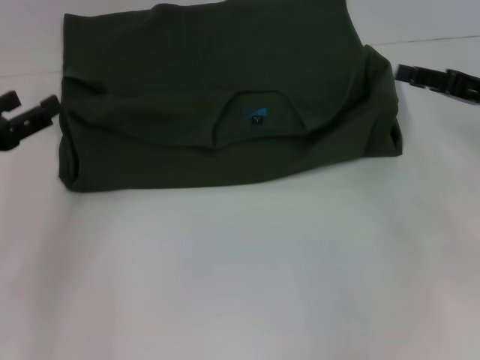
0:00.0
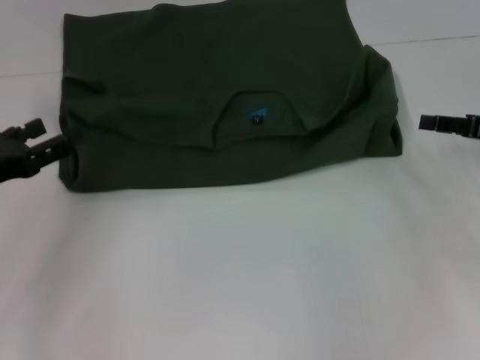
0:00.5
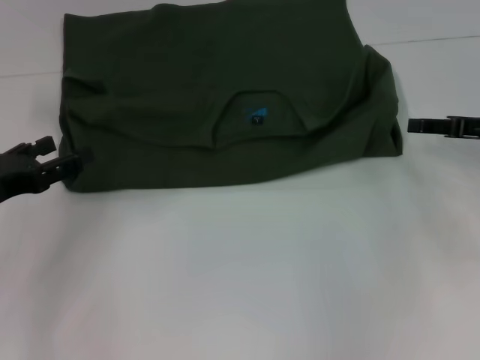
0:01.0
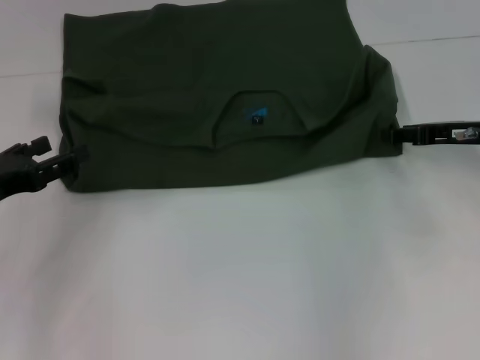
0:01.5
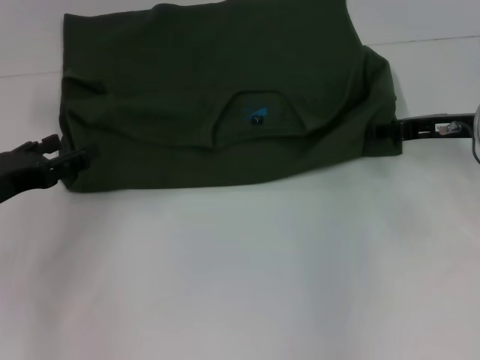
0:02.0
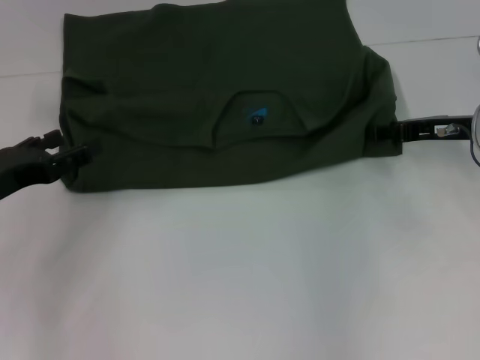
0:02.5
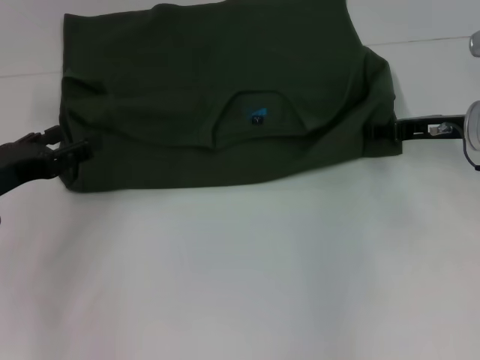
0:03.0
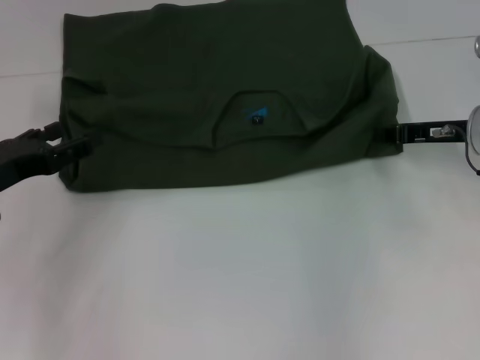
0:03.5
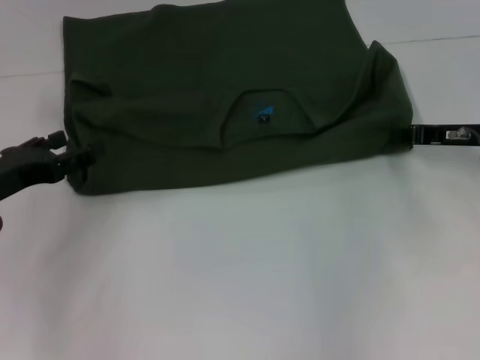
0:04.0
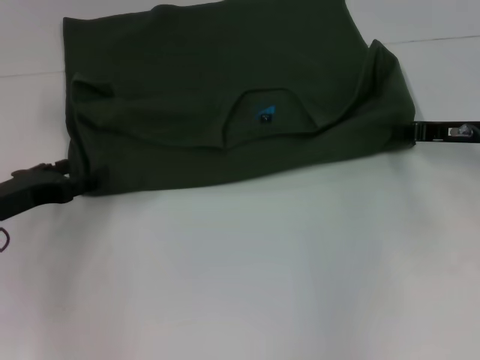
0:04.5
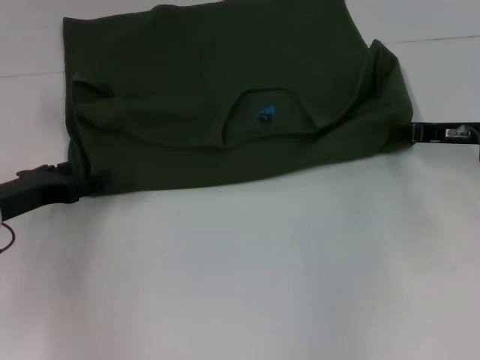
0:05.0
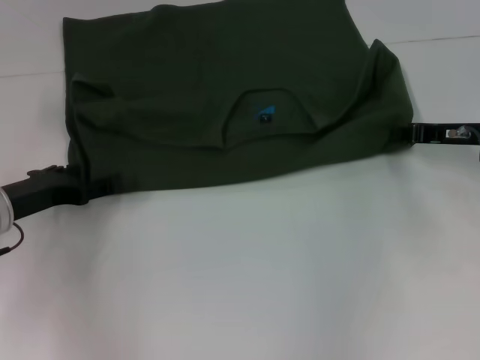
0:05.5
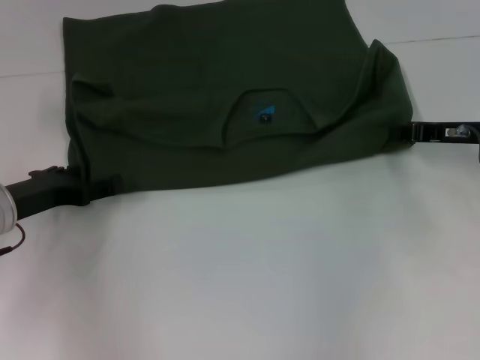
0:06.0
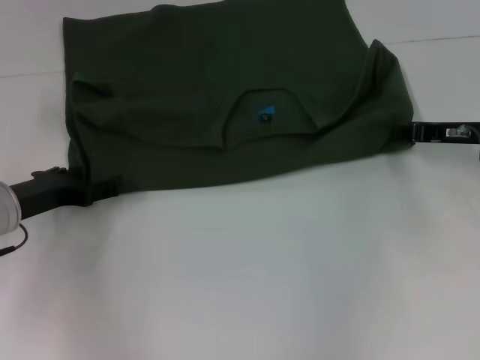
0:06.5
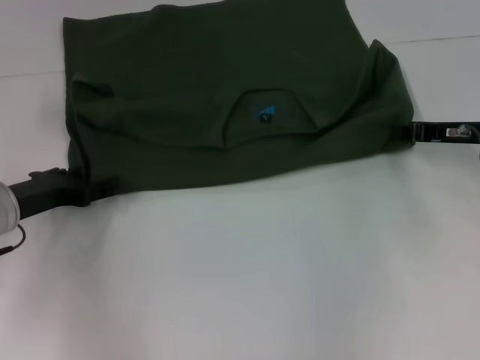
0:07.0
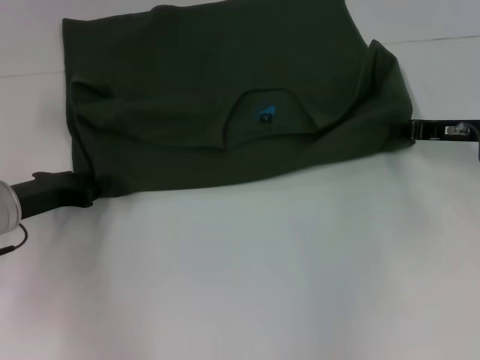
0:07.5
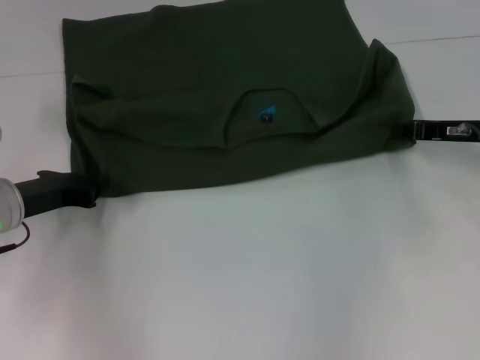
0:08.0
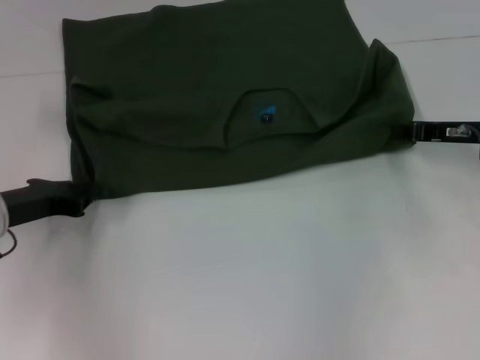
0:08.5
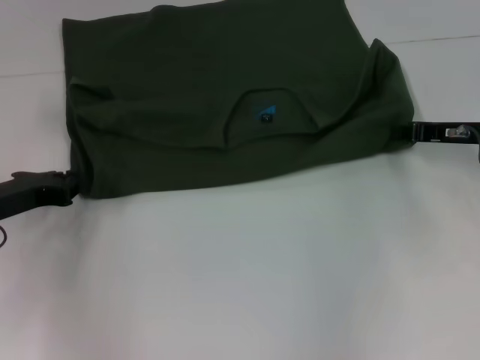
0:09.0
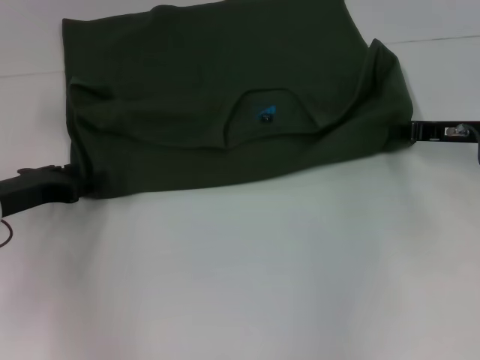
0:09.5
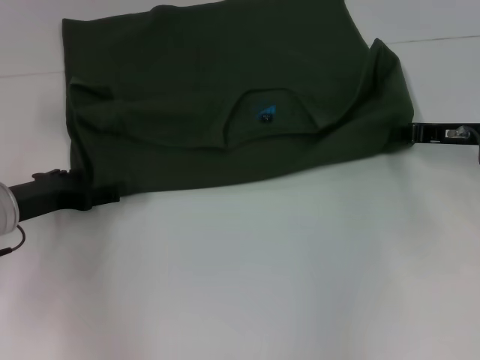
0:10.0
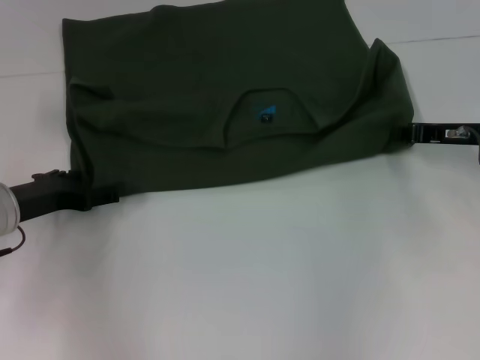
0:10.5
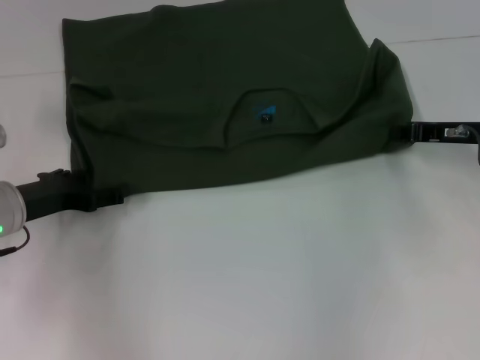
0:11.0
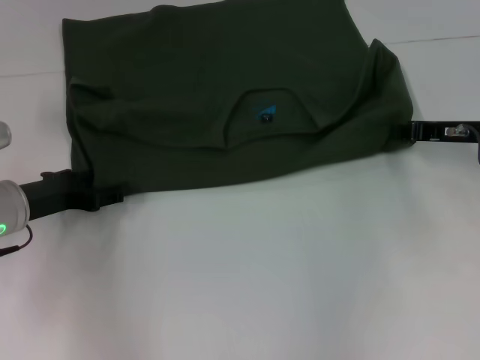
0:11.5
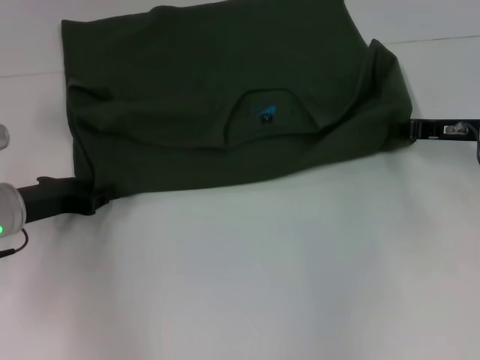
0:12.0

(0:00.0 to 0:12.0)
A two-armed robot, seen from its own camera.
0:00.0 - 0:02.0: The right gripper changes place by approximately 5 cm.
0:02.0 - 0:04.0: The right gripper closes its fingers.
0:04.0 - 0:06.0: There are only small adjustments of the grippers.
0:06.0 - 0:08.0: The left gripper closes.
0:08.0 - 0:10.0: The left gripper opens its fingers.
0:10.0 - 0:12.0: The two grippers keep their place.

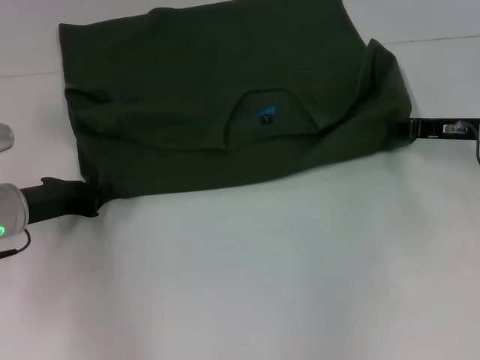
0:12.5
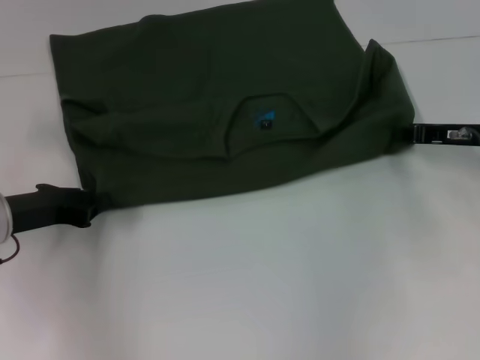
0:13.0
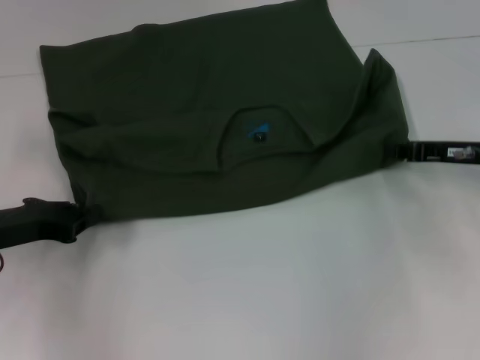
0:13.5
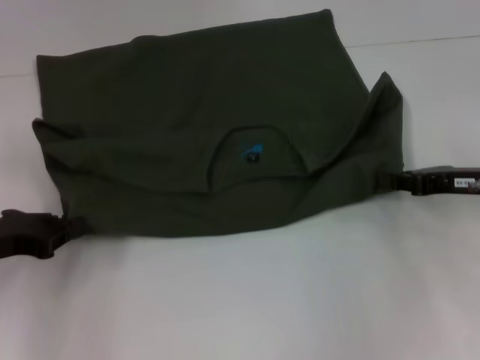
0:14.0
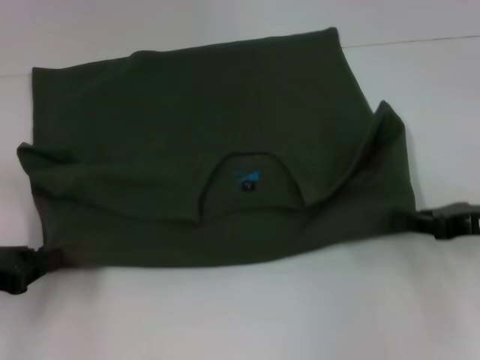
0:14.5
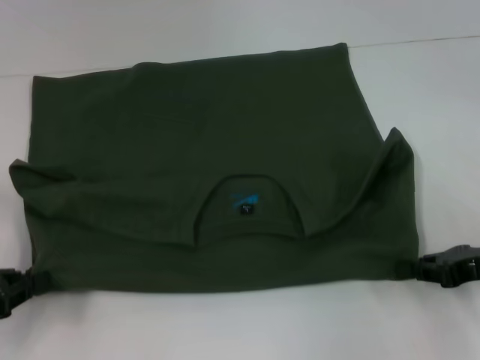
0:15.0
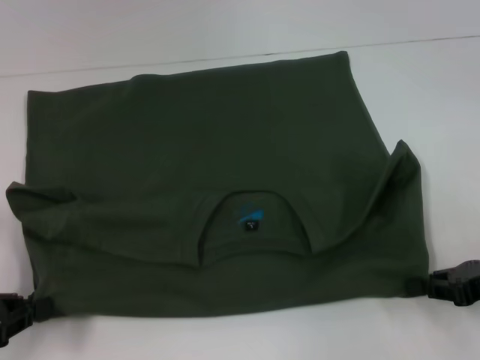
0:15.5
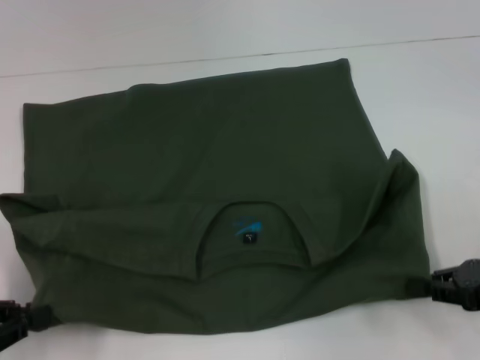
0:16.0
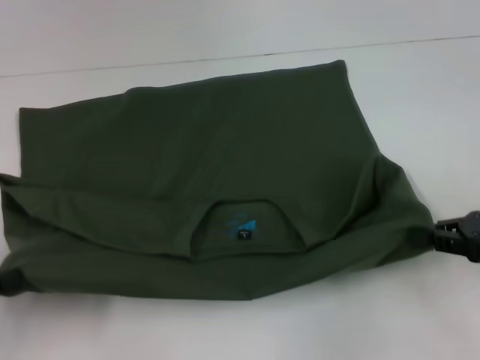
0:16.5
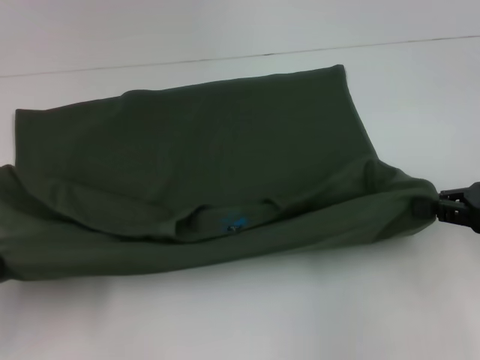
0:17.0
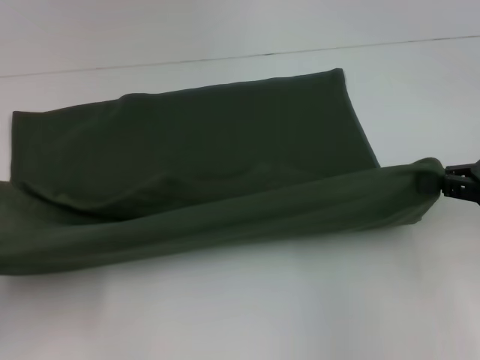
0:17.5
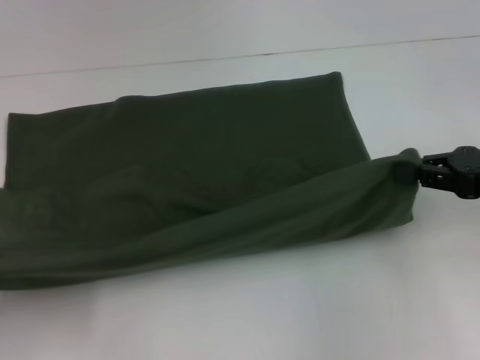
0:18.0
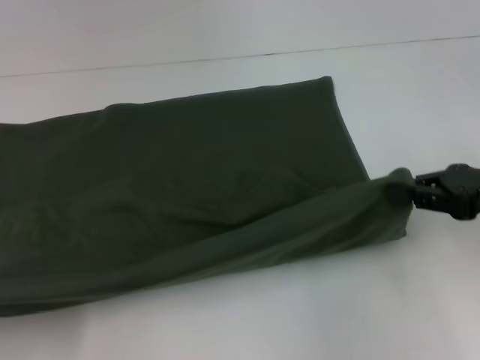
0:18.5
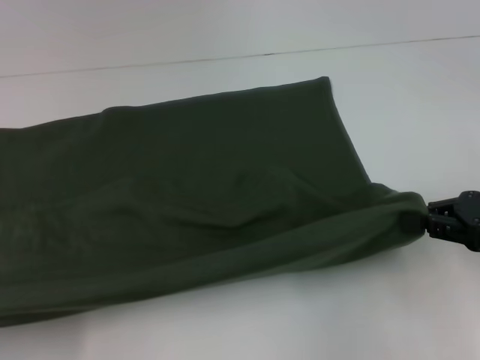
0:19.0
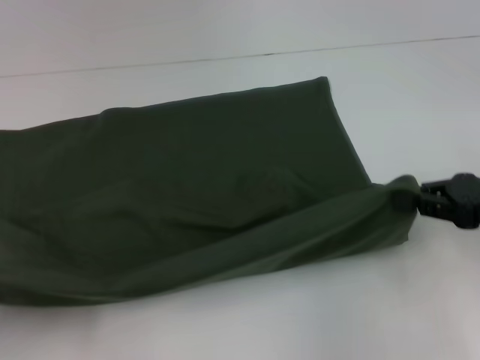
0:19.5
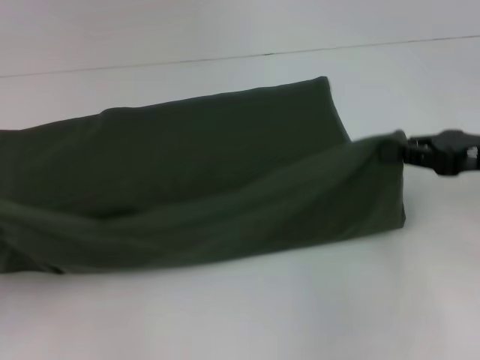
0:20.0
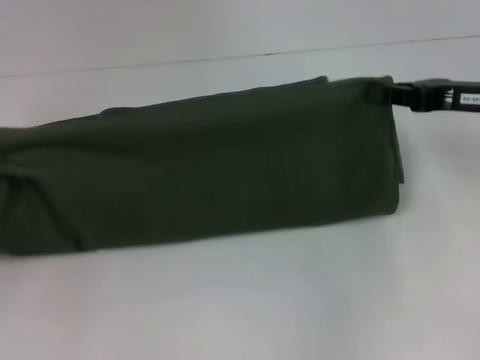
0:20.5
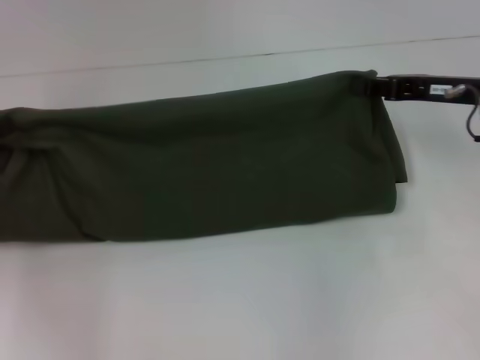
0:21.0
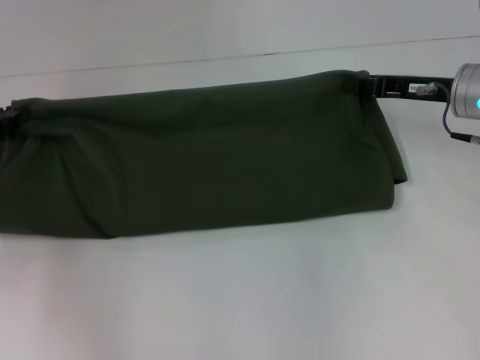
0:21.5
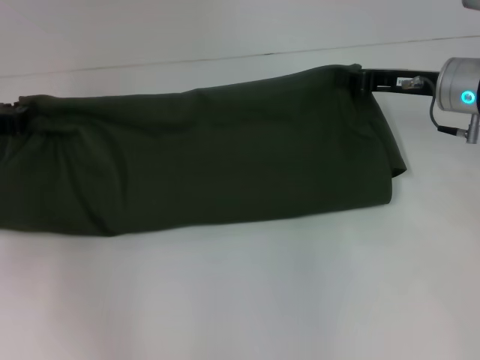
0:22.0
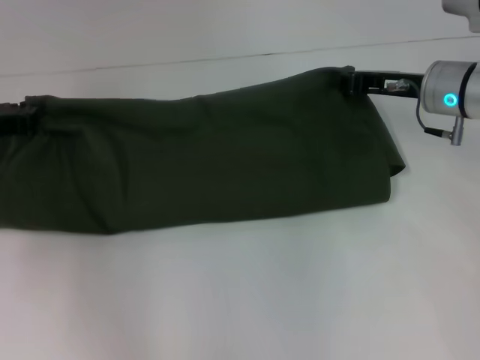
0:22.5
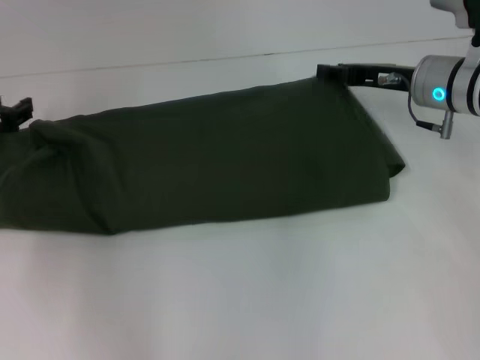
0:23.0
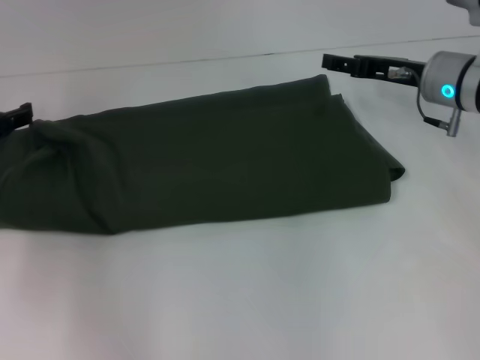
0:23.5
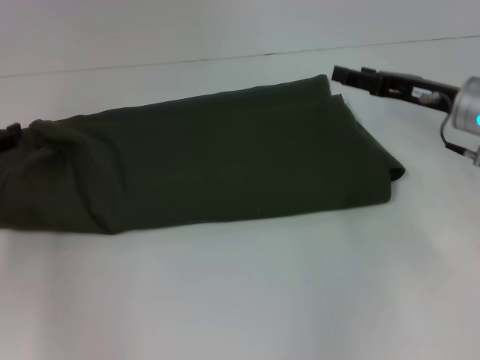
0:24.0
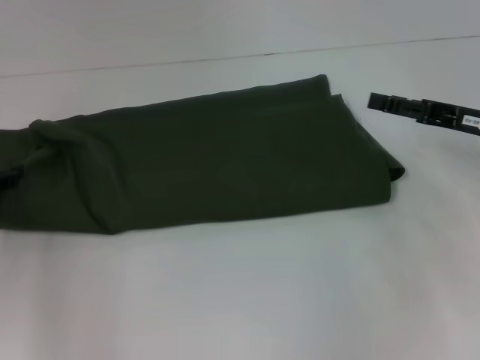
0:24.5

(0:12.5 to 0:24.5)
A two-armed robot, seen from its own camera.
Step, 0:12.5 - 0:15.0: Pull the clothes with your left hand.
Step, 0:12.5 - 0:15.0: Pull the clothes with your right hand.
Step, 0:15.5 - 0:23.0: Fold the clothes with your right hand.
0:12.5 - 0:14.5: The left gripper heads backward and to the left, covering roughly 10 cm; the right gripper goes approximately 10 cm backward.
0:14.5 - 0:16.5: The left gripper moves backward, about 5 cm.
0:16.5 - 0:18.5: The left gripper changes place by about 5 cm.
0:18.5 - 0:20.5: The right gripper heads forward, covering roughly 5 cm, while the left gripper travels forward by approximately 15 cm.
0:20.5 - 0:22.5: The right gripper travels forward and to the left by some 10 cm. Meanwhile the left gripper heads forward and to the right, covering about 10 cm.
0:22.5 - 0:24.5: The left gripper heads backward, covering approximately 5 cm, and opens up, while the right gripper goes about 10 cm backward and to the right, and opens its fingers.

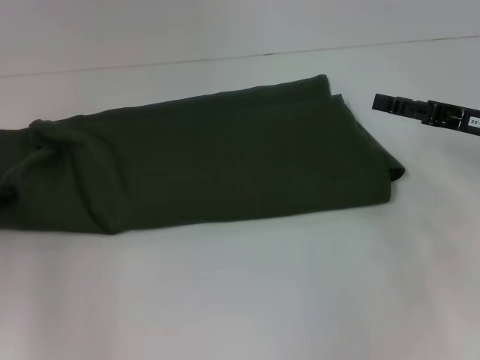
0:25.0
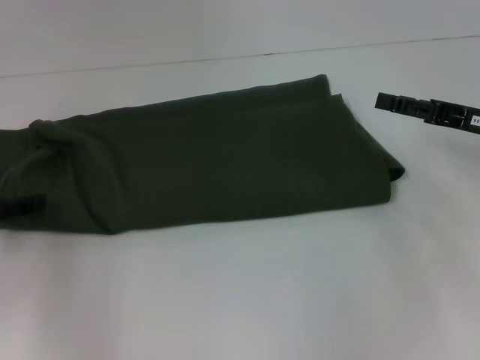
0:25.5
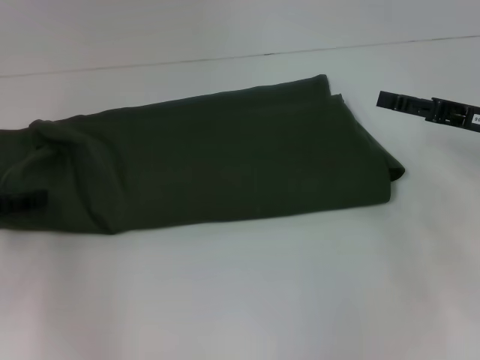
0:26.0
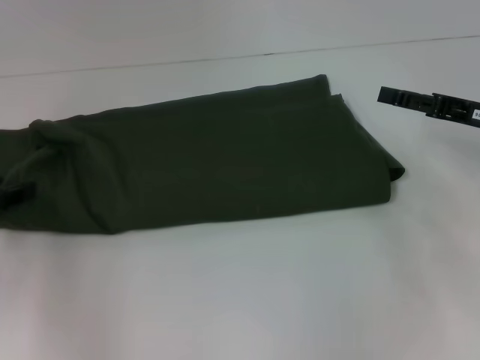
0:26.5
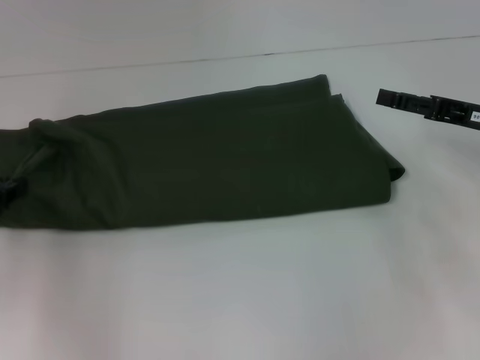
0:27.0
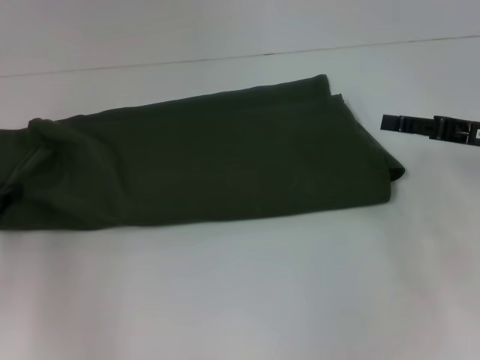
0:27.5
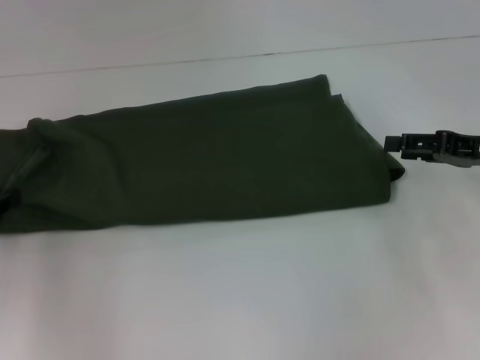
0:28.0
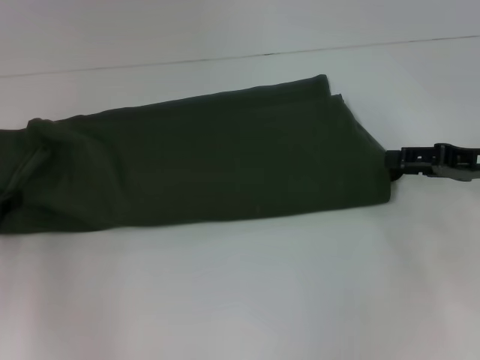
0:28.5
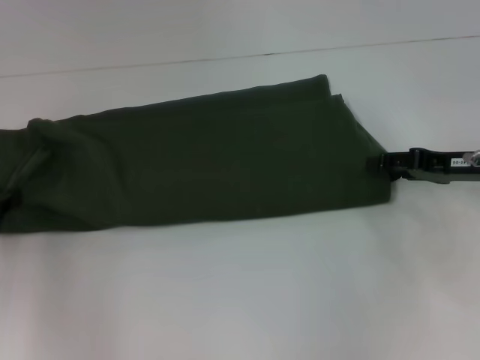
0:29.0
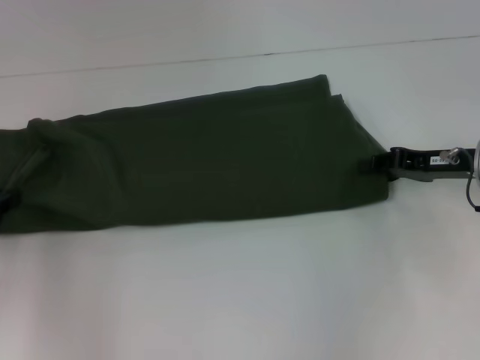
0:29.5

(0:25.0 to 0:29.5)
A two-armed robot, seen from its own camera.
0:27.0 - 0:29.5: The right gripper closes.
